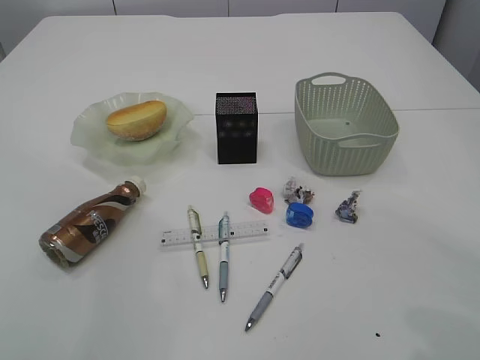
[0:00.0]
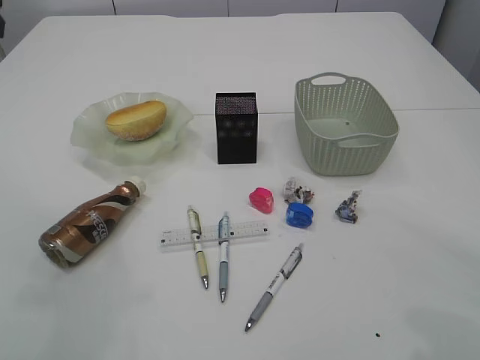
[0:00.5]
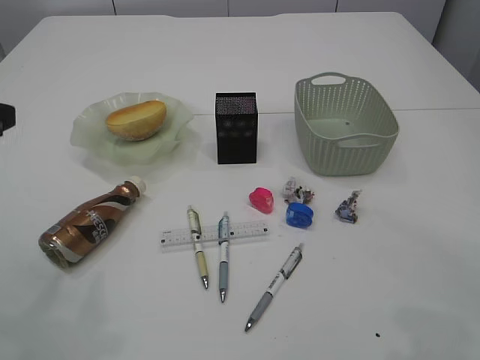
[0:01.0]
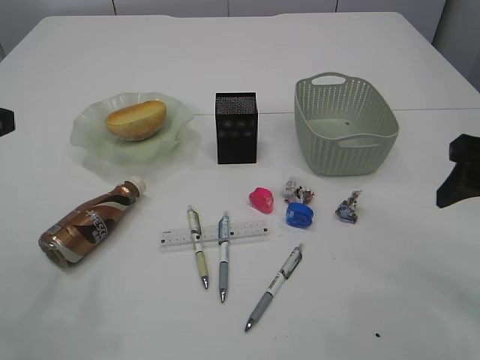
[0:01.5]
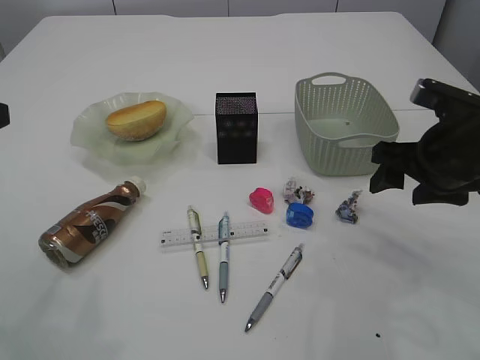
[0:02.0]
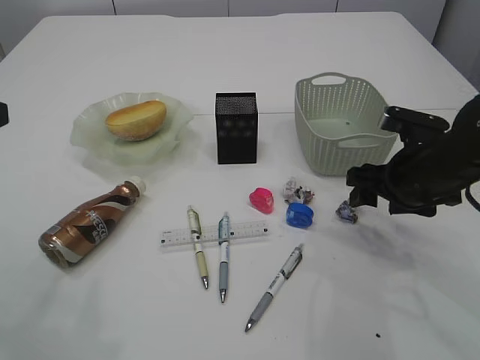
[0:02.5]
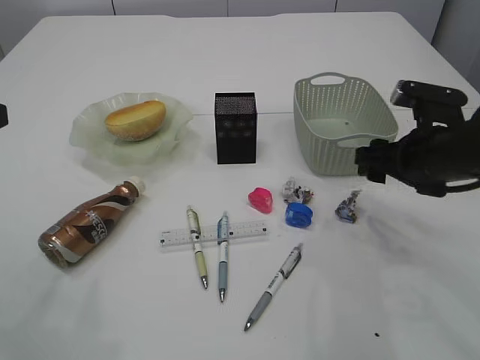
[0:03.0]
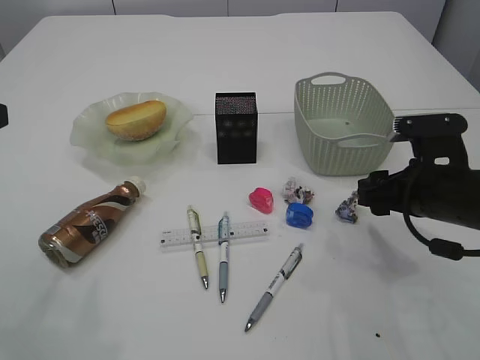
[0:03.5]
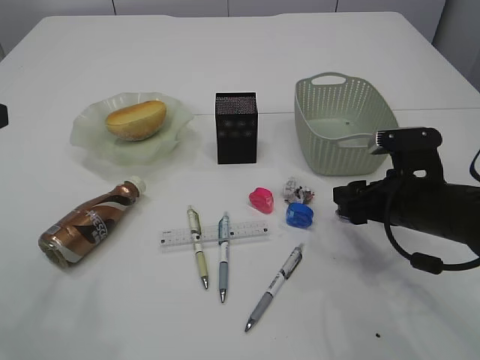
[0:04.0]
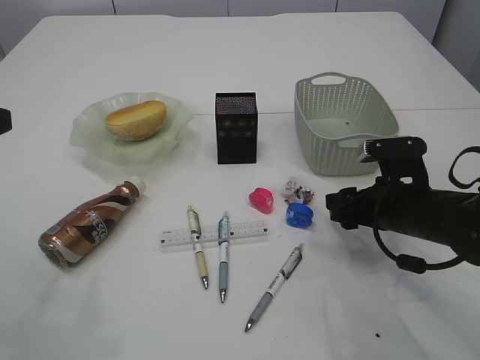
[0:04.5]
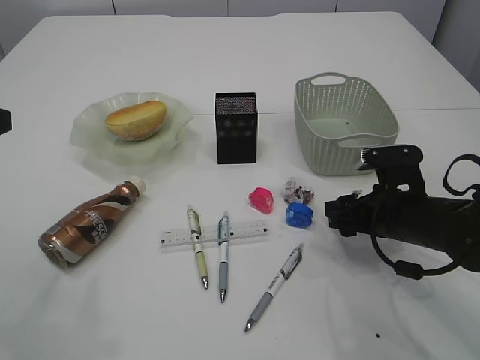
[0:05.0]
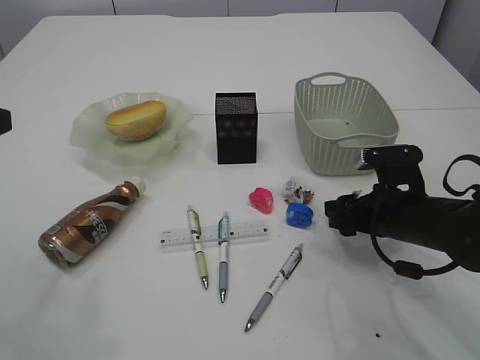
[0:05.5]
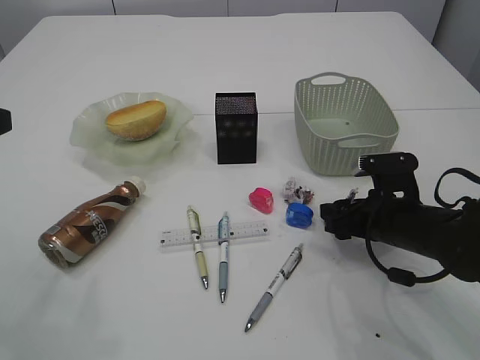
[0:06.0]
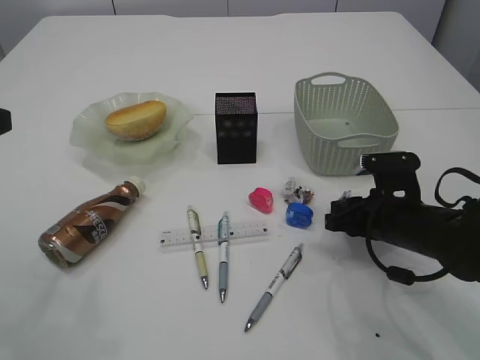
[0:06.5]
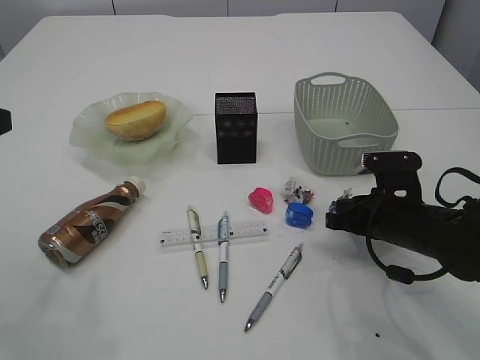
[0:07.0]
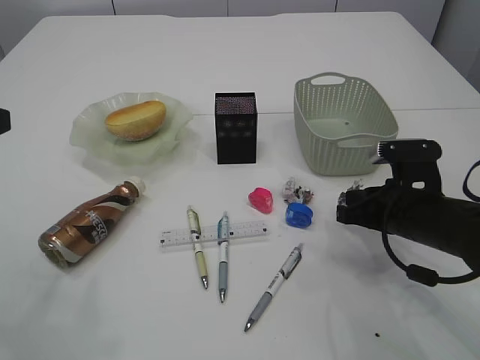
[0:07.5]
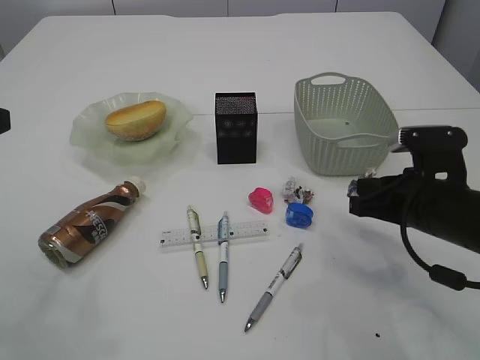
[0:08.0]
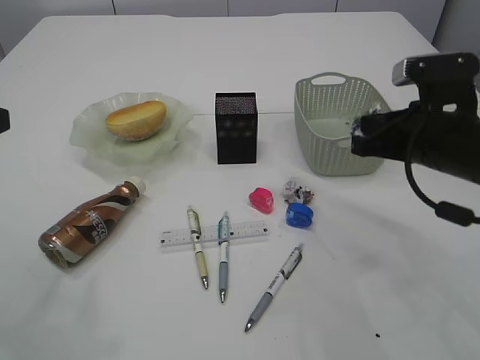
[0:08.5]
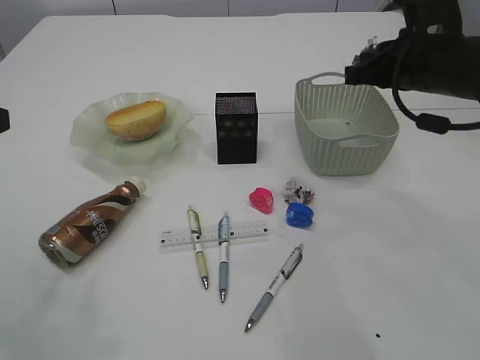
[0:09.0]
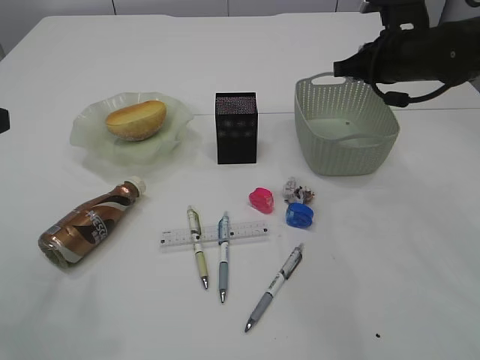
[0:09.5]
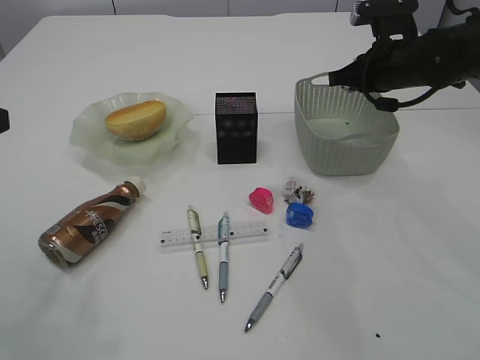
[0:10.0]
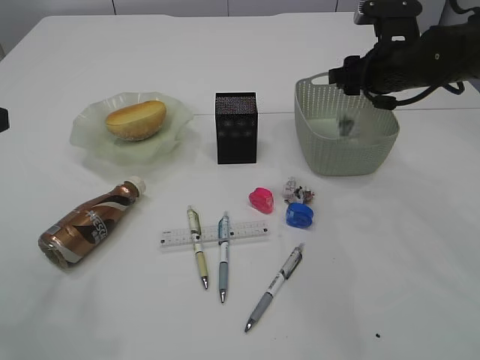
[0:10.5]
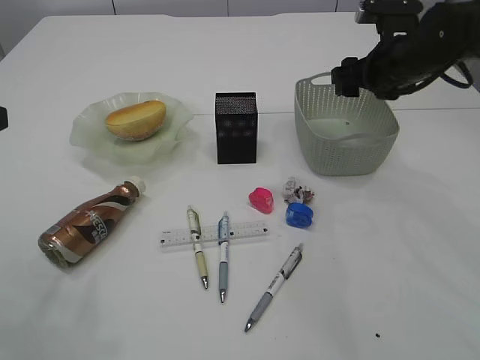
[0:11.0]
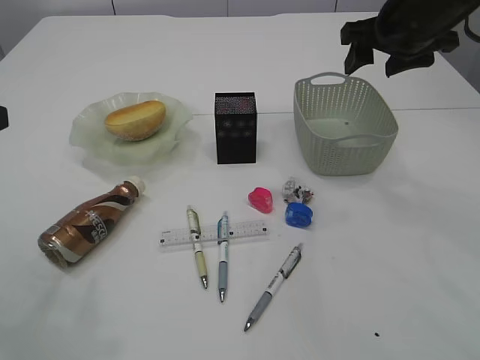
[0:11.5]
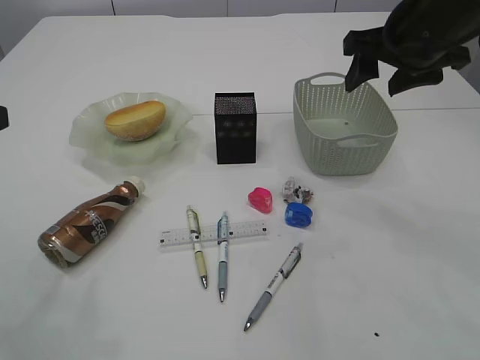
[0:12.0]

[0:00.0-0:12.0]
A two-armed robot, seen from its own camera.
Step, 0:00.0 to 0:07.5: Pick up the waste paper.
Step, 0:08.0 to 0:11.0: Place the waste paper in the basket.
0:00.0 to 0:02.0: The right gripper shifts some 15 cm to the left, forward and downward.
0:02.0 to 0:04.0: The right gripper moves downward, approximately 10 cm.
0:04.0 to 0:06.0: The right gripper moves about 5 cm.
0:06.0 to 0:08.0: The right gripper moves upward, some 5 cm, and closes up.
0:08.0 to 0:10.0: The right gripper moves forward and upward, some 20 cm.
0:10.0 to 0:12.0: The right gripper heads upward and backward, covering about 10 cm, and opens.

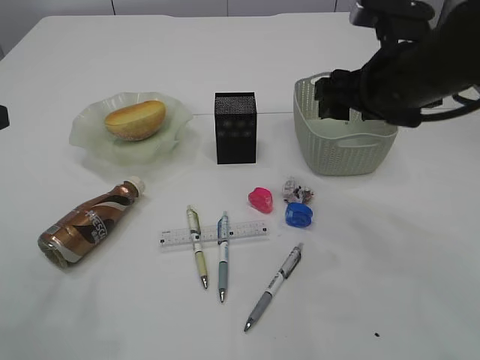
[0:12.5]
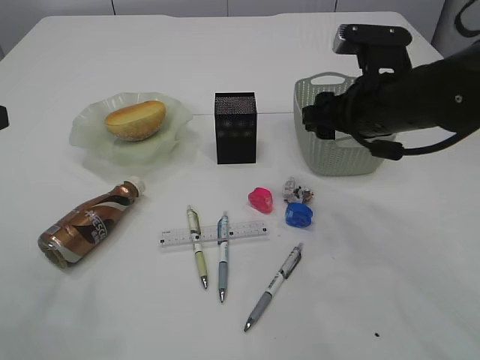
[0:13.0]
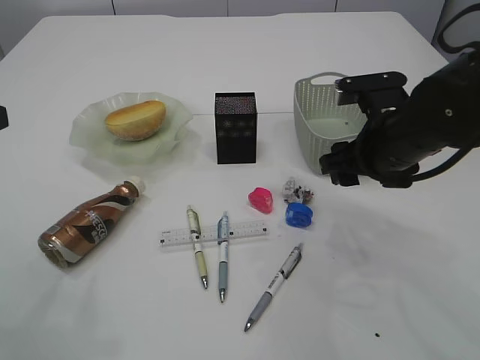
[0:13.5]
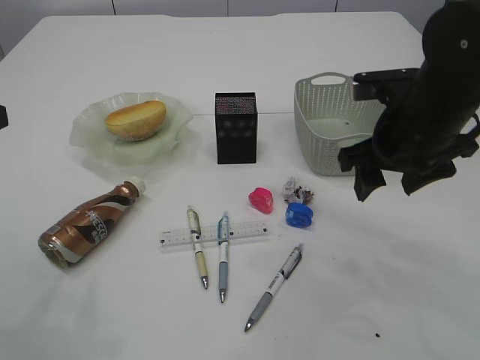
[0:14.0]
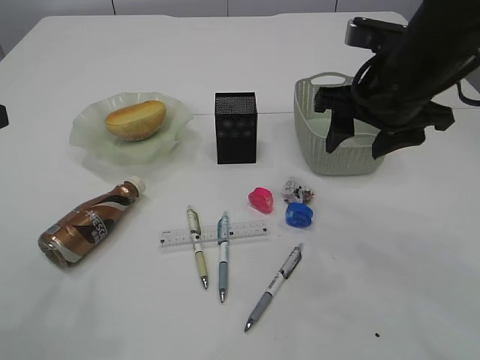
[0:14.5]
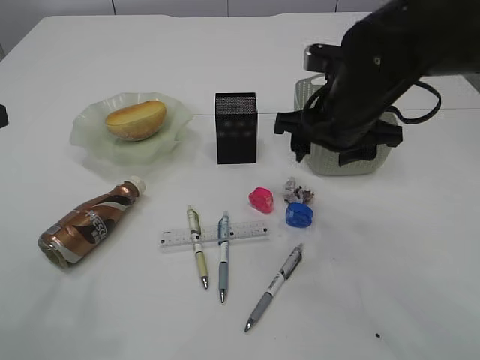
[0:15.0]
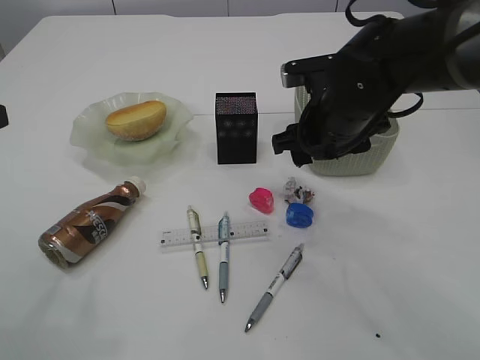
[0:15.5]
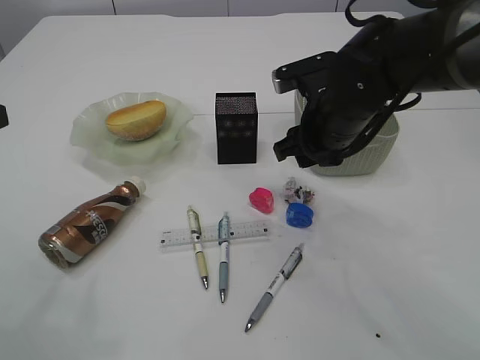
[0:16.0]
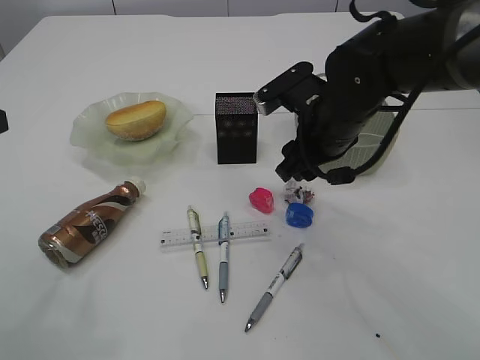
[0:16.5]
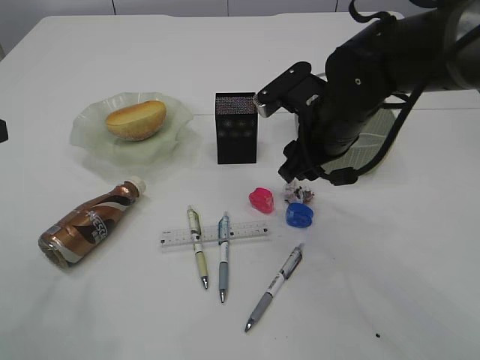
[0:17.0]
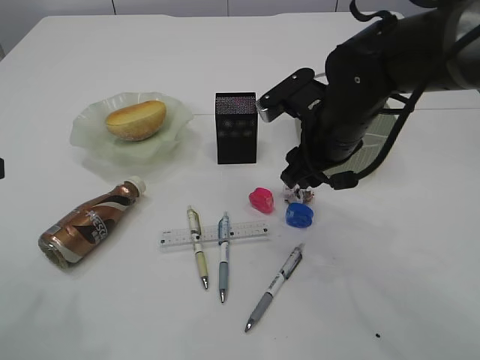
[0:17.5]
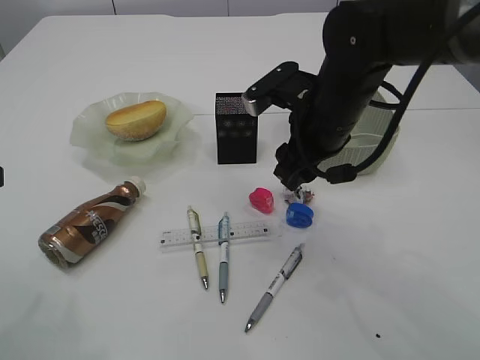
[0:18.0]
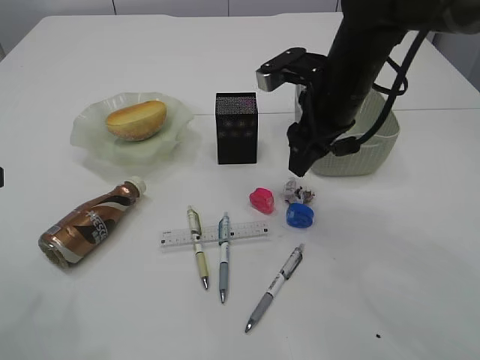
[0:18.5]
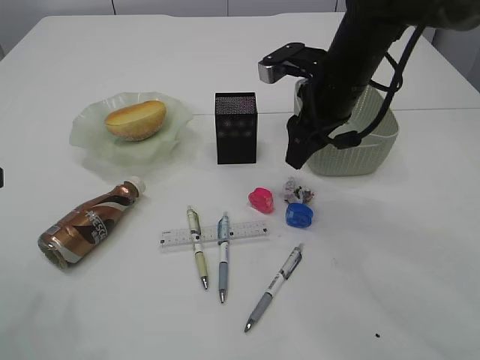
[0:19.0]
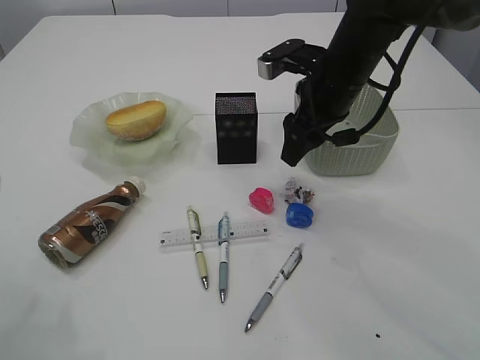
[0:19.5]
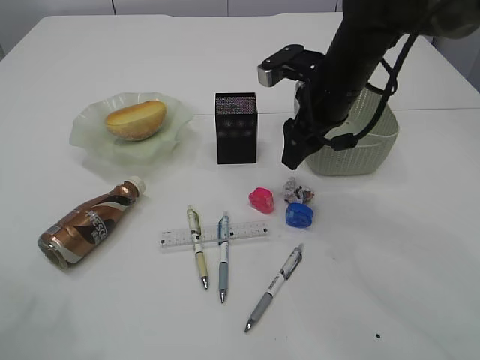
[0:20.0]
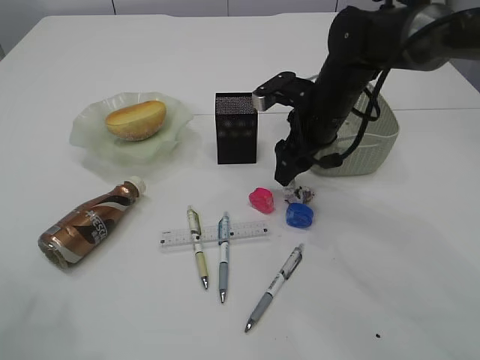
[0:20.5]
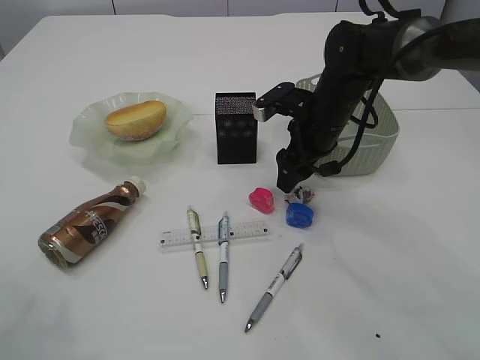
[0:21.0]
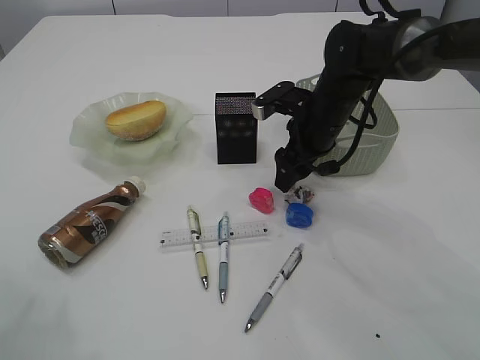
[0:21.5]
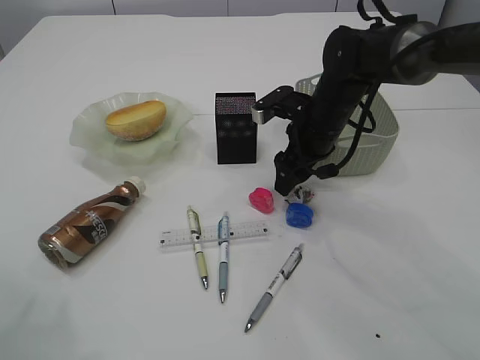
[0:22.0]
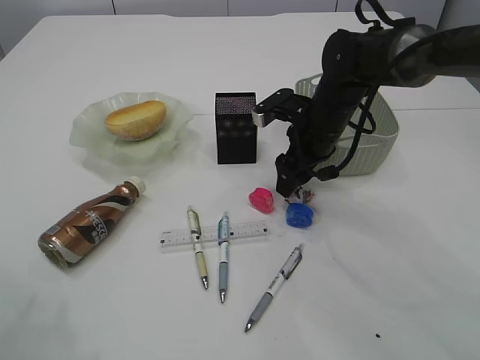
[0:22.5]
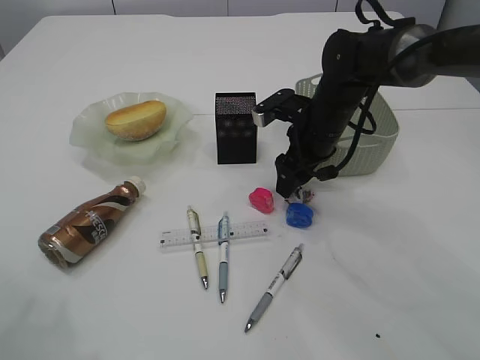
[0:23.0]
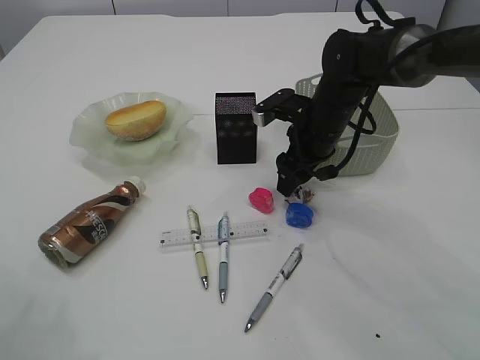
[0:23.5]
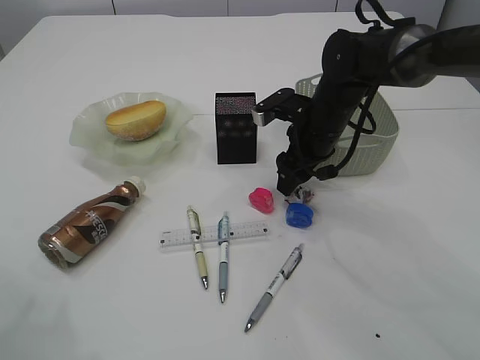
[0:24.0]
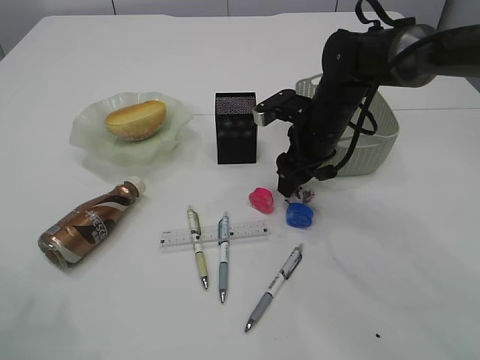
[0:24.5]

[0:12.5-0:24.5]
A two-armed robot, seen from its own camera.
0:14.5 to 0:16.5: The right gripper is displaced downward and to the left by some 10 cm.
0:18.5 to 0:20.5: The right gripper is displaced downward by approximately 5 cm.
0:20.5 to 0:22.5: The grippers move only a little.
0:22.5 to 0:24.5: Both grippers stay about where they are.

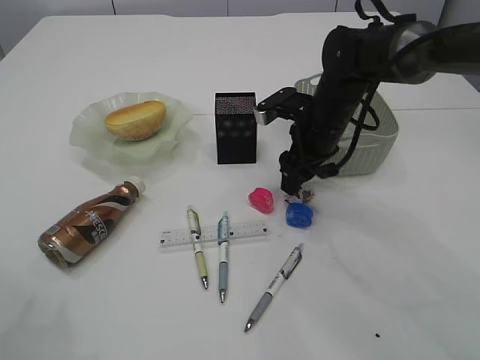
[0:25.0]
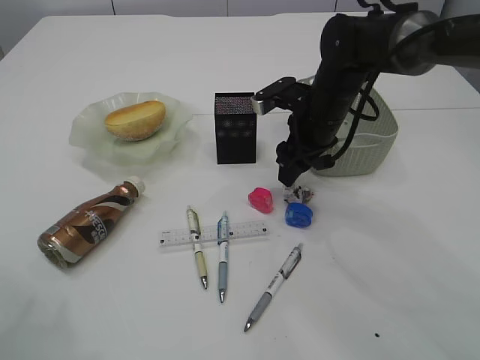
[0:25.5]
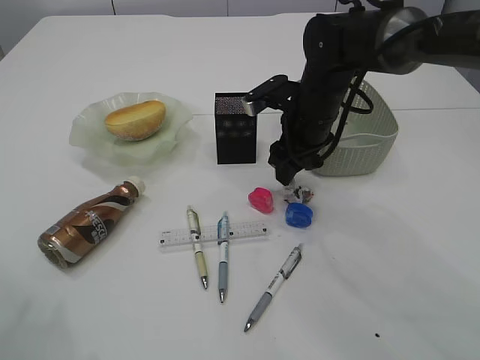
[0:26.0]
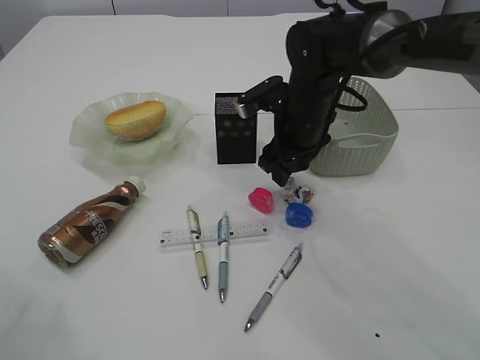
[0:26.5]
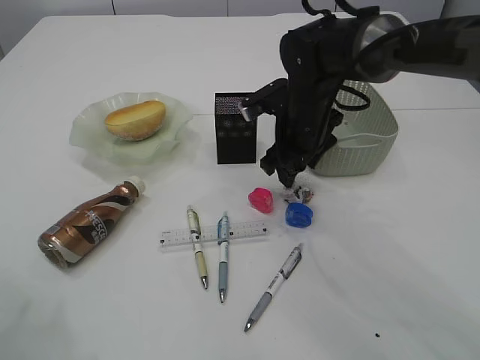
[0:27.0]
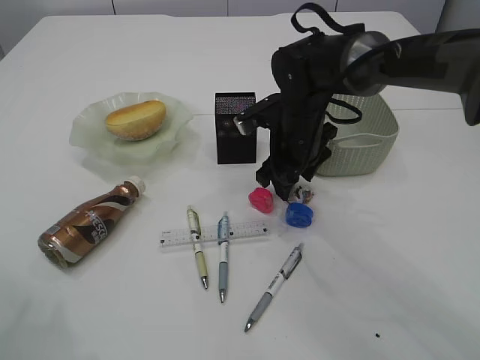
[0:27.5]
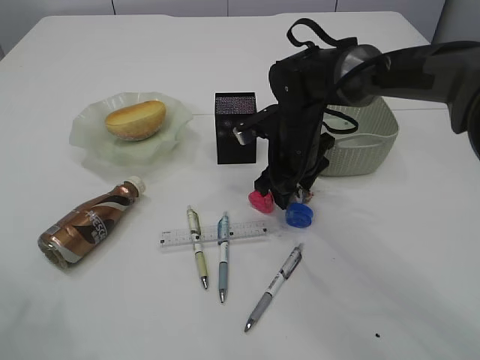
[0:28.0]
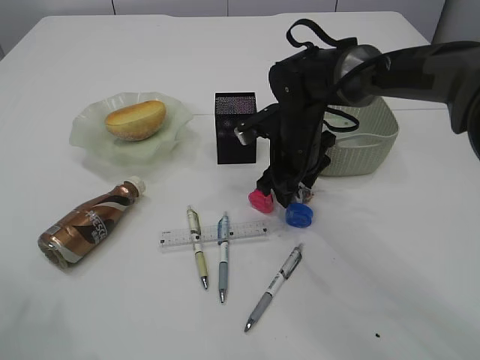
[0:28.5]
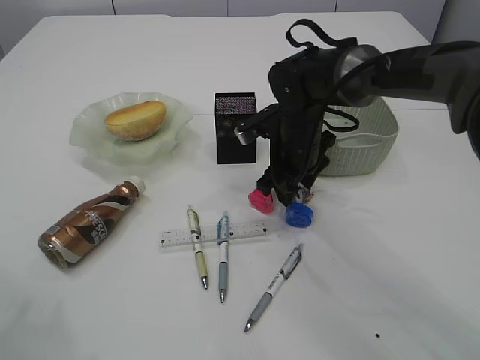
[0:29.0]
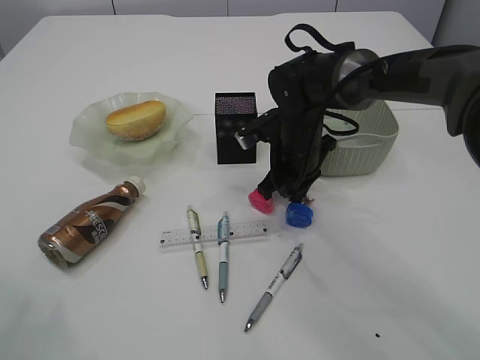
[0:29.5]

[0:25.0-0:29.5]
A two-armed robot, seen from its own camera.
0:25.0 to 0:27.0: There are only small adjustments of the grippers.
0:27.0 to 0:29.5: The right gripper closes.
